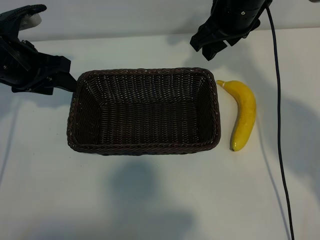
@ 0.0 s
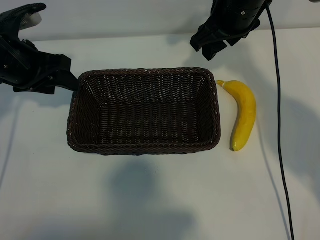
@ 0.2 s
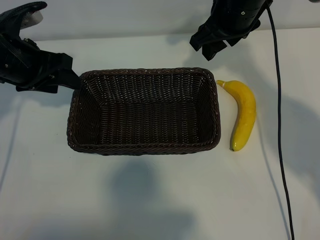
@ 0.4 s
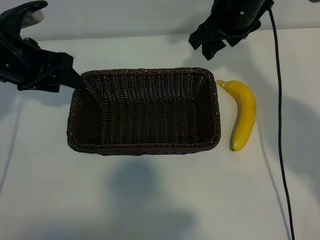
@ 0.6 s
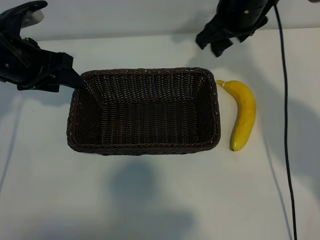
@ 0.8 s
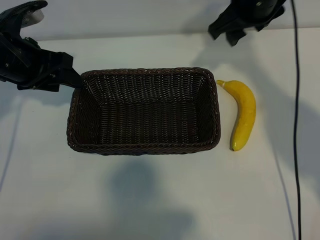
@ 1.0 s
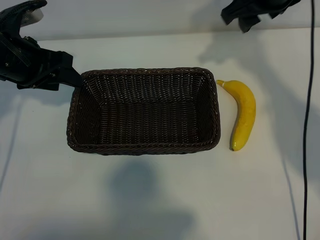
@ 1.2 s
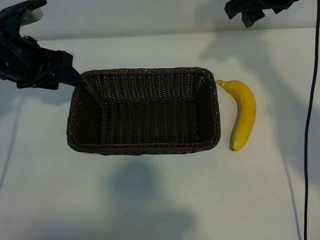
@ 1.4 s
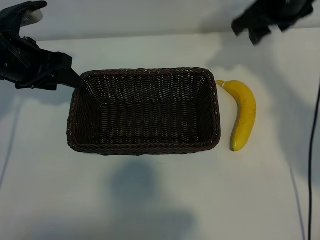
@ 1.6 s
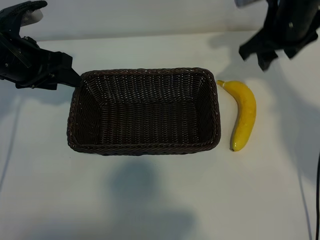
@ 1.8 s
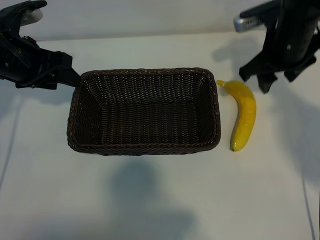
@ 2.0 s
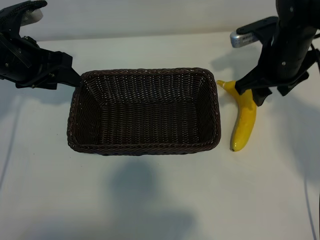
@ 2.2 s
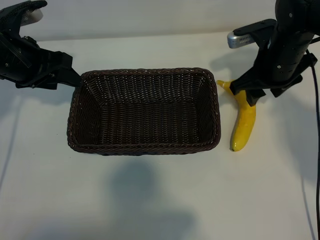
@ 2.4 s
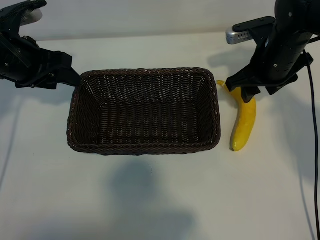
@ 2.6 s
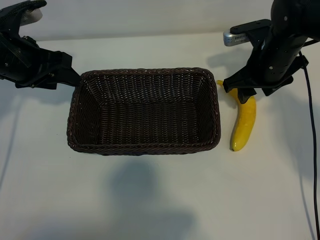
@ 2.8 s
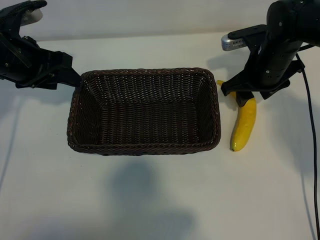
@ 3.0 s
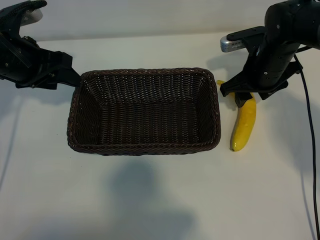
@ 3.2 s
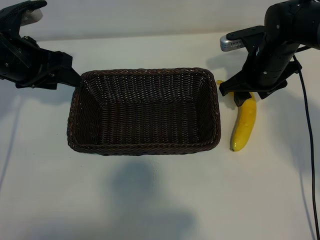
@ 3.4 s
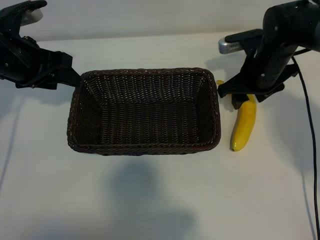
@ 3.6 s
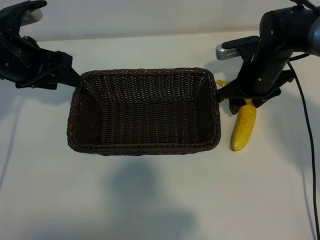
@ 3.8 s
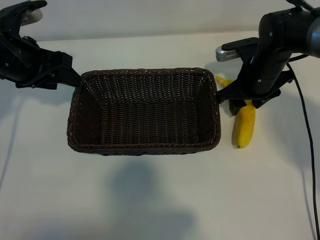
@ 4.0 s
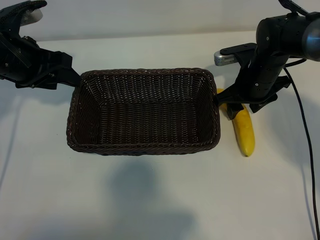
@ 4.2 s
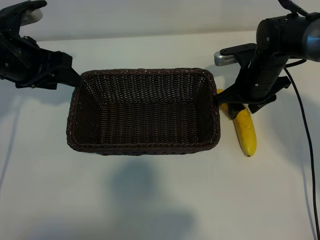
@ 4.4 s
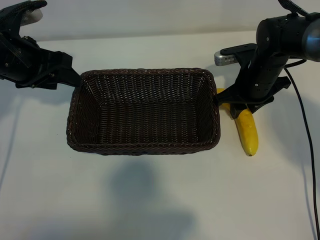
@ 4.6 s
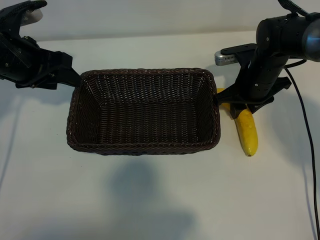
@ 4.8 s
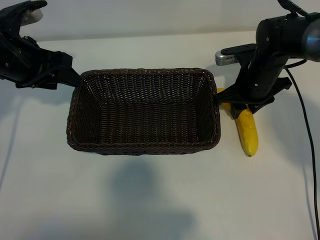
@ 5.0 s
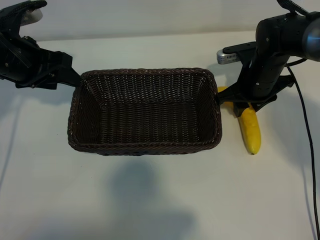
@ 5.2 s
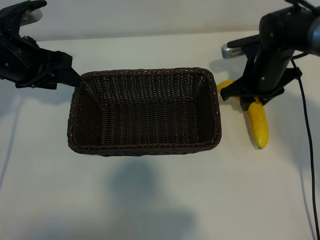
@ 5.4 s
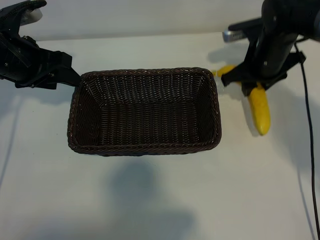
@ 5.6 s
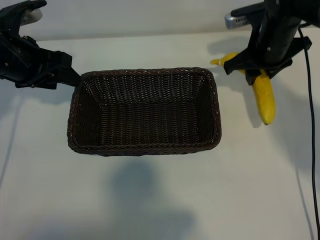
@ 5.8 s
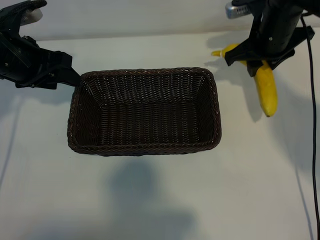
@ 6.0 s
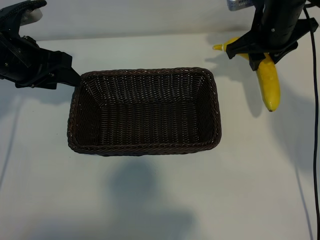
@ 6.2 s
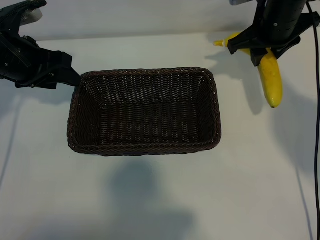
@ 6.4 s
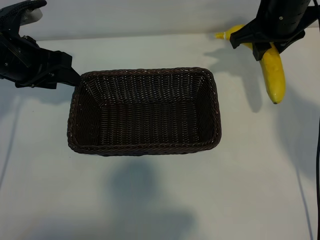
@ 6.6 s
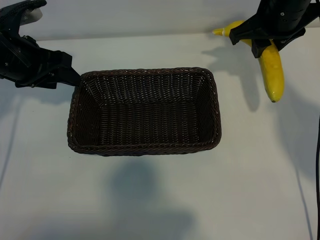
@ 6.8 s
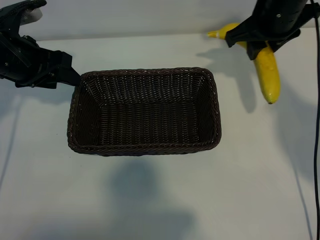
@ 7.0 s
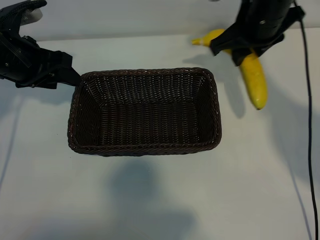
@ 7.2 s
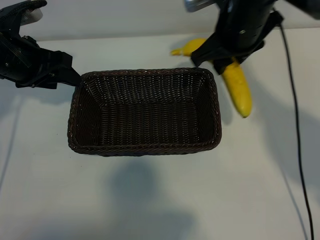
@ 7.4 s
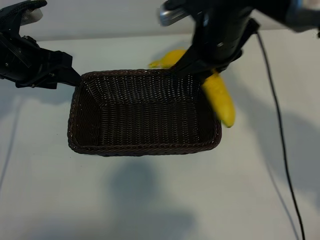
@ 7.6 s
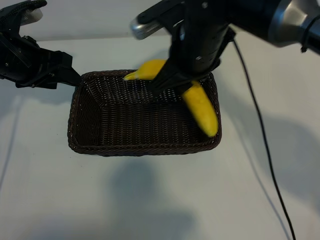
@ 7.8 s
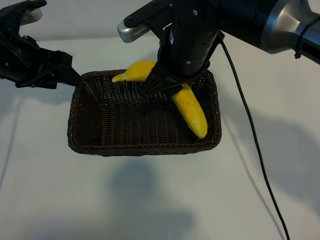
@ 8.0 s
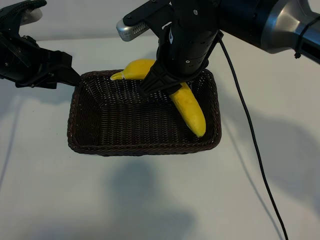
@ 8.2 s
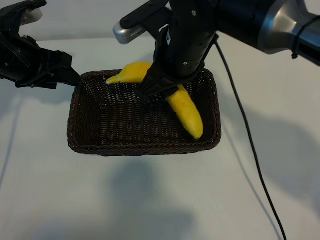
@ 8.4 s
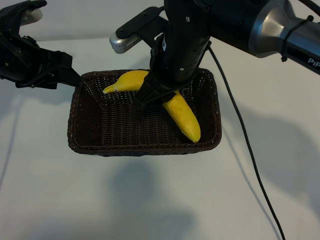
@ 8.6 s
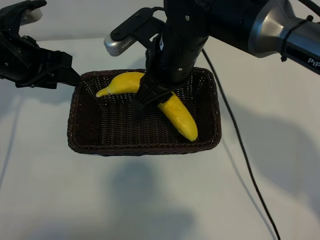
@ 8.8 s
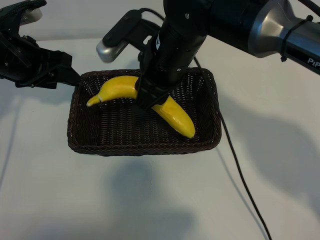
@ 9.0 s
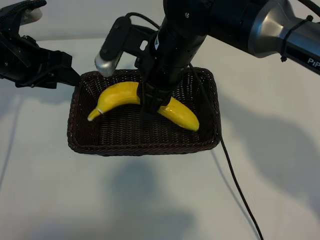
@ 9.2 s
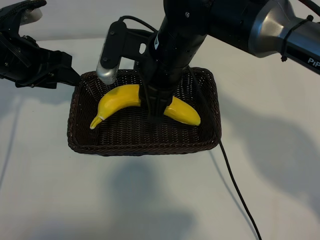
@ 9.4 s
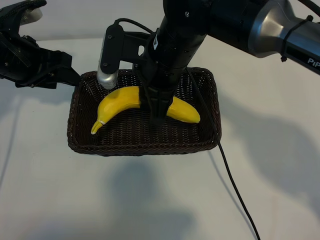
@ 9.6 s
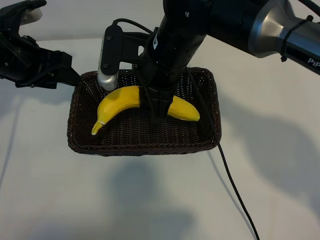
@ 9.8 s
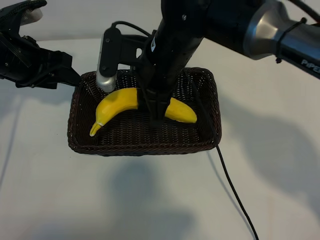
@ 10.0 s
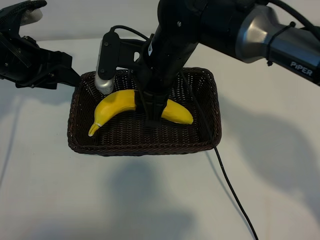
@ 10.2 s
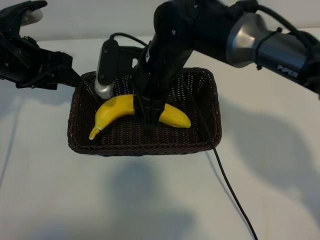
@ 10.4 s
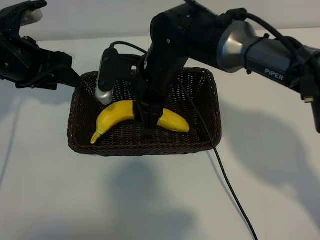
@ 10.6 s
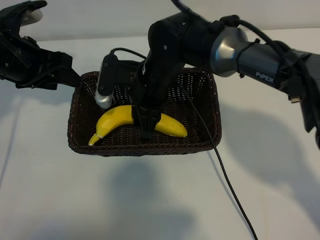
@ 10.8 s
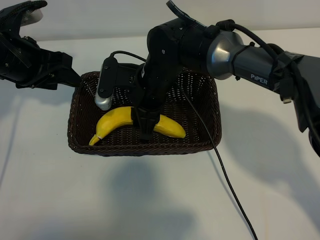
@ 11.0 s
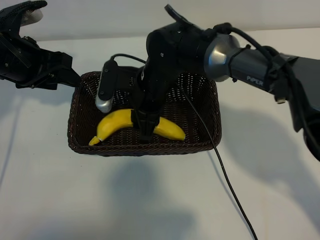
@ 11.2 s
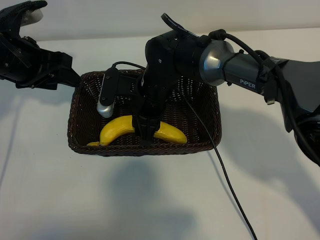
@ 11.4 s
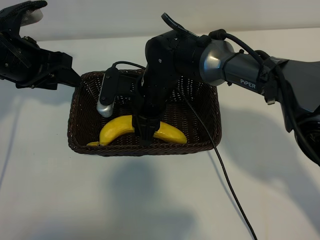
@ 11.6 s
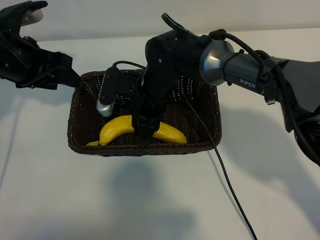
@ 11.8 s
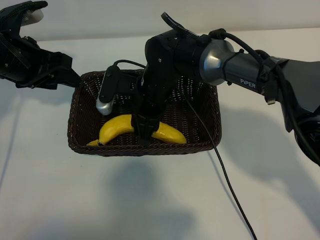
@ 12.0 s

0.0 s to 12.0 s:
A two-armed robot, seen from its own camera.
Task of the whole recording: pick up the banana and put it into the basket.
Step, 0.0 to 4.8 s: Grasp the banana with right gripper.
